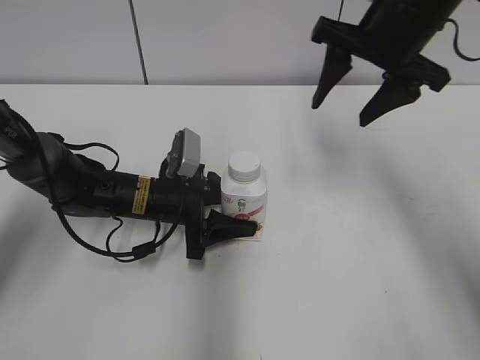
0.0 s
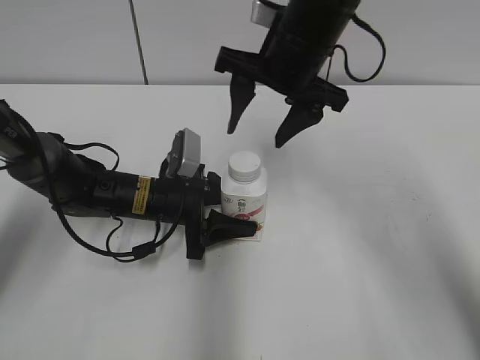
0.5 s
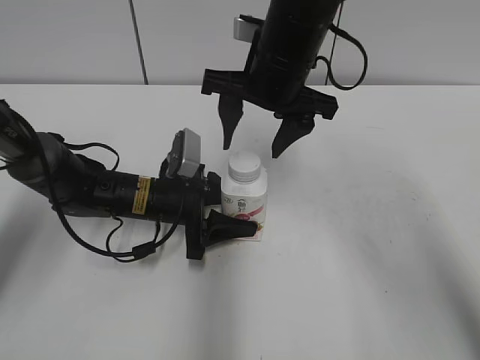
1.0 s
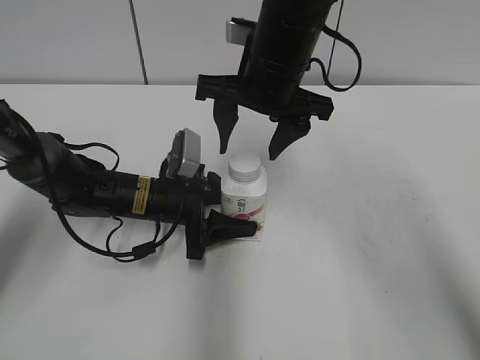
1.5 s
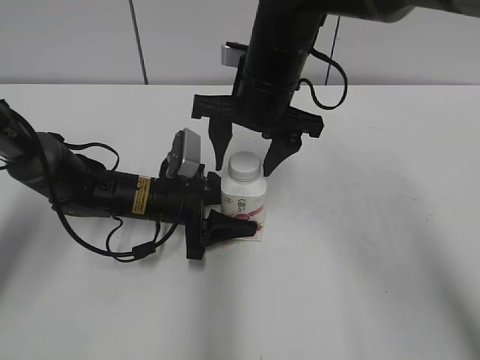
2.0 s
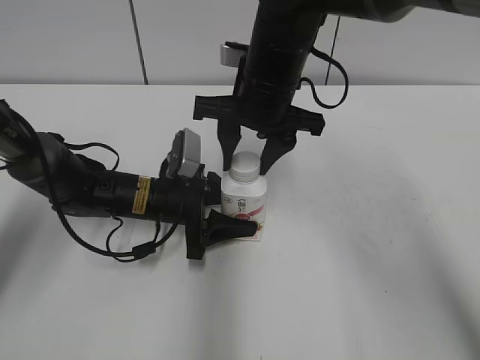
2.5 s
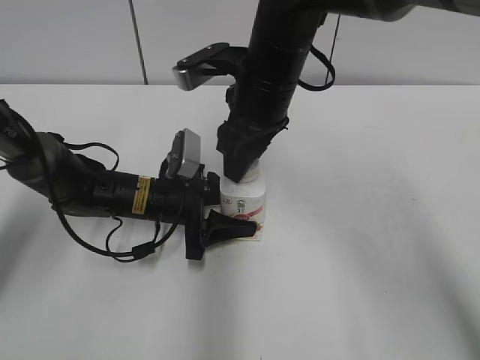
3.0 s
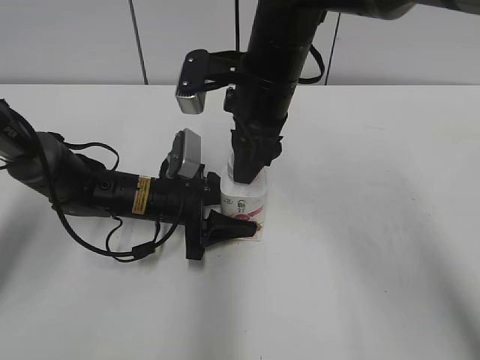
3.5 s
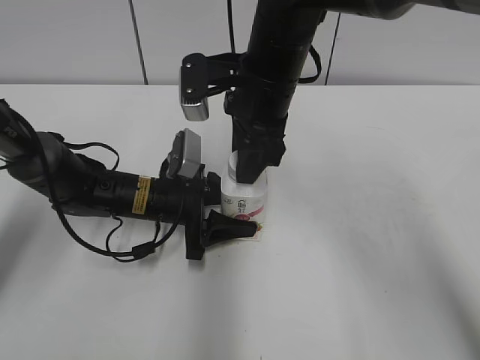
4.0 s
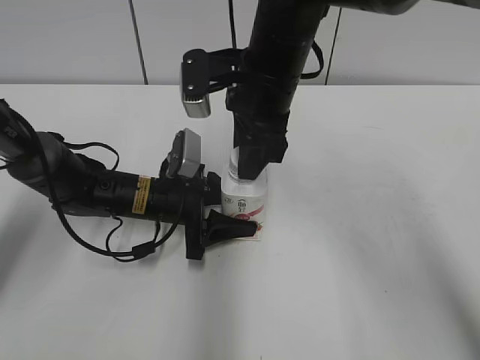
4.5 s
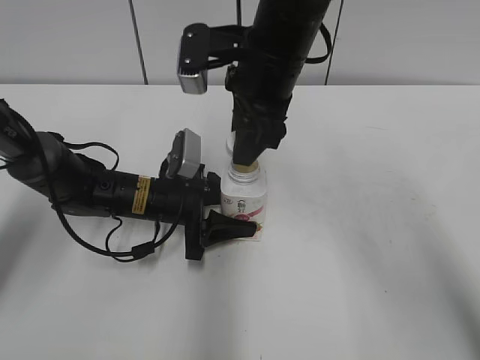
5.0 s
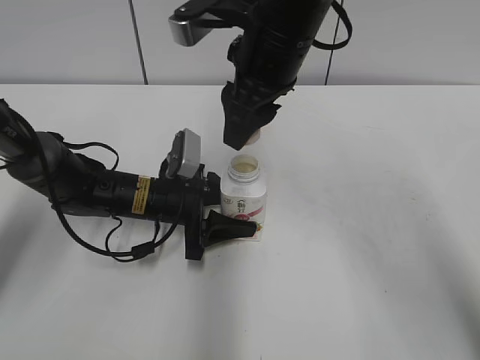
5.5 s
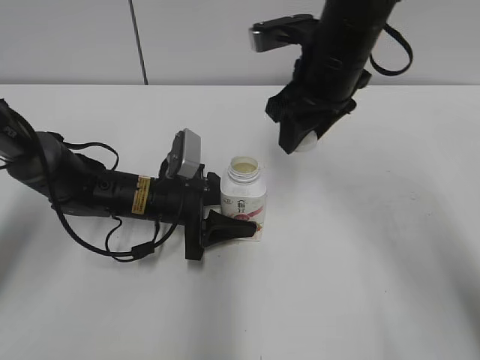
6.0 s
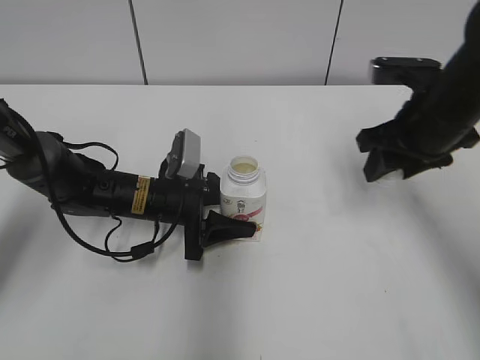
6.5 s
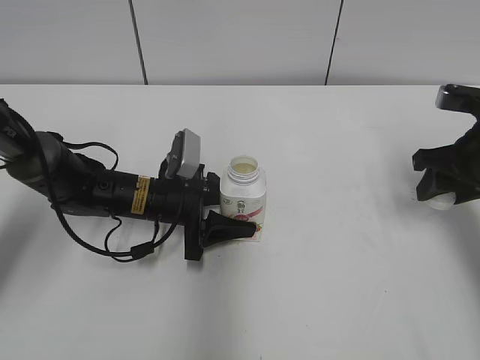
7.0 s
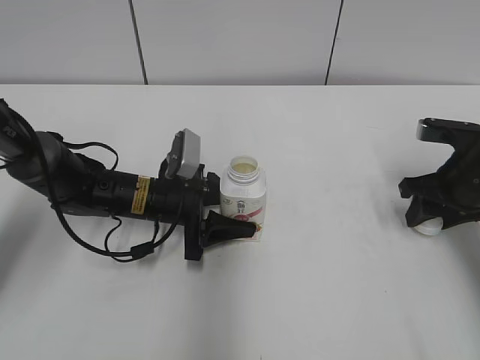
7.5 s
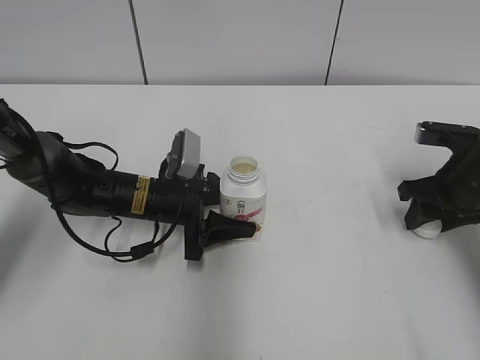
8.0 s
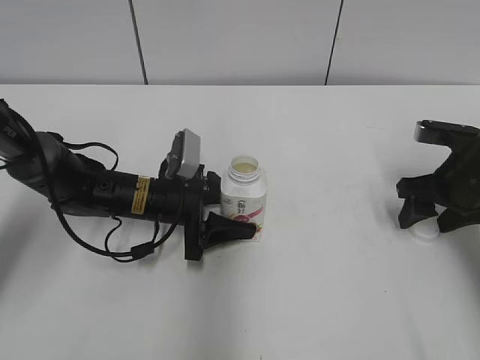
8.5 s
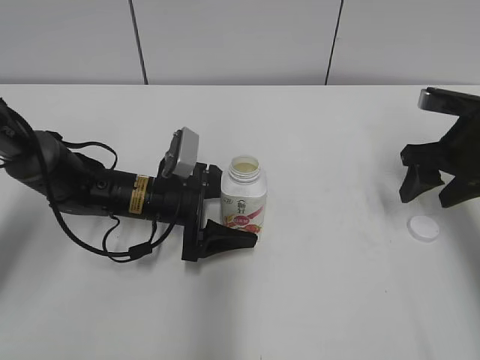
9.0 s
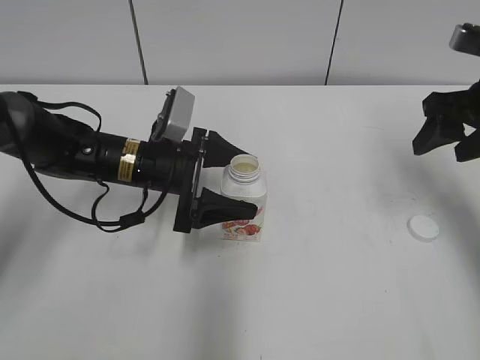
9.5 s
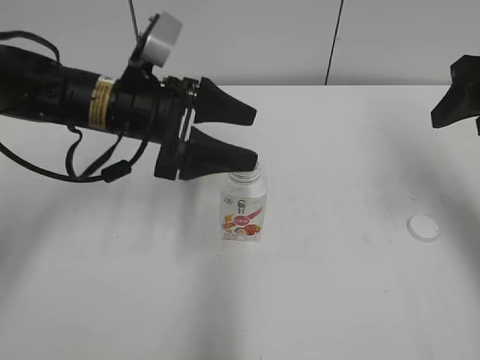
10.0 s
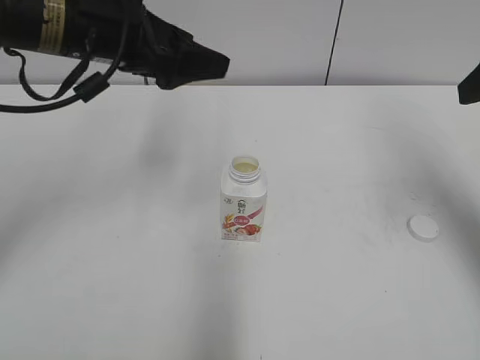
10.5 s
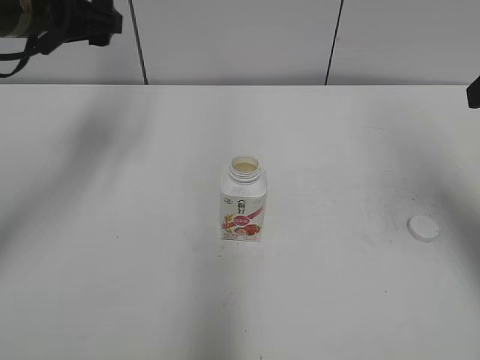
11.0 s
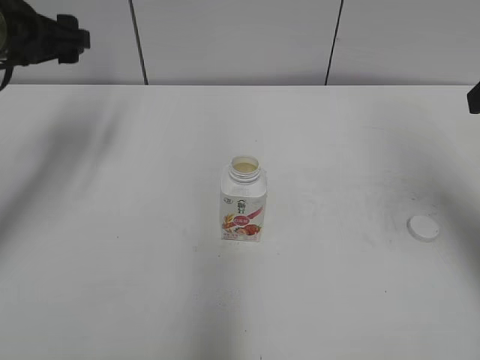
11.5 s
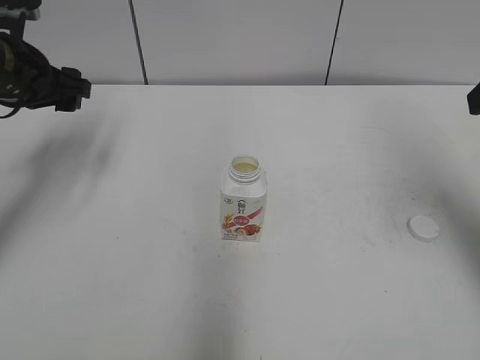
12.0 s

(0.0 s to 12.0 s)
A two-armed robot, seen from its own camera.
Step, 5.5 s - 8.0 s: Place the bottle cap on the right.
0.0 s - 2.0 s: The right gripper heads to the left and downward, covering some 15 cm.
2.0 s - 4.0 s: The right gripper closes.
4.0 s - 6.0 s: The right gripper travels to the right by about 5 cm.
6.0 s - 8.0 s: The right gripper heads to the right and downward, covering some 25 cm.
8.0 s - 10.0 s: The grippers both shift upward by about 15 cm. The right gripper opens its fingers, while the left gripper opens up.
10.0 s - 12.0 s: The left gripper shifts about 15 cm to the left. The right gripper moves roughly 5 cm.

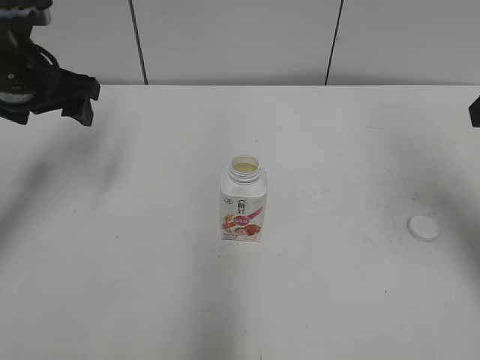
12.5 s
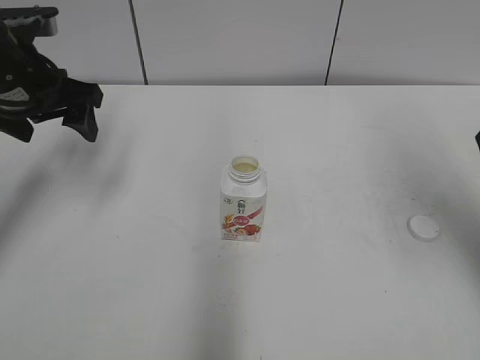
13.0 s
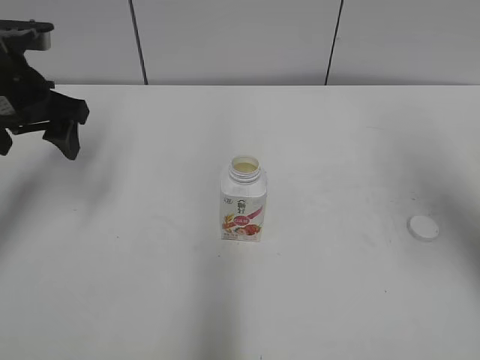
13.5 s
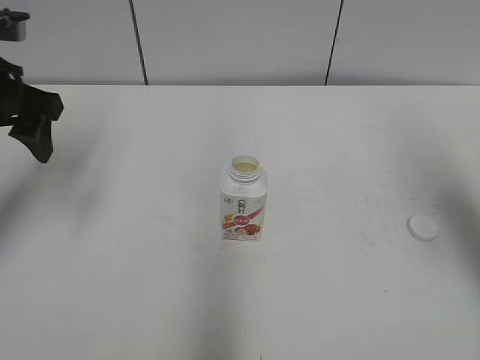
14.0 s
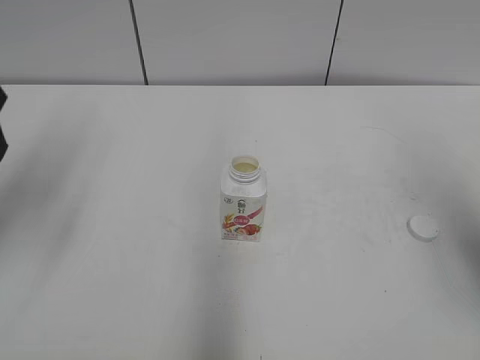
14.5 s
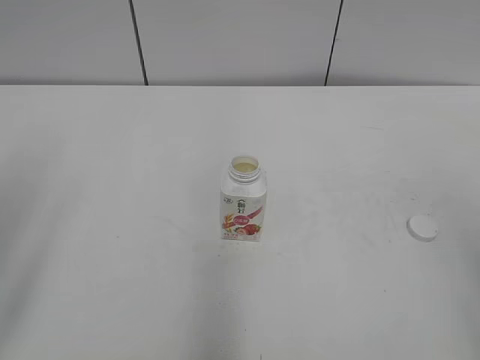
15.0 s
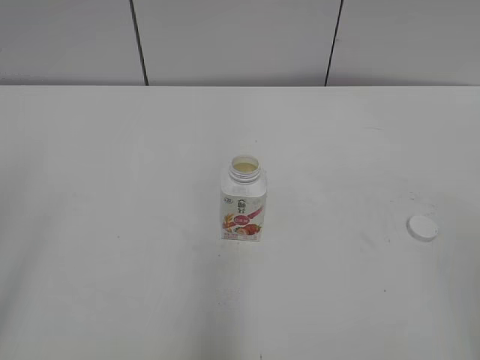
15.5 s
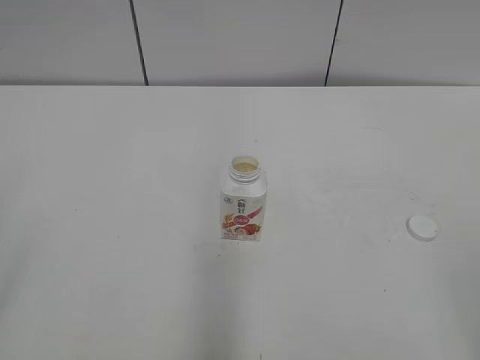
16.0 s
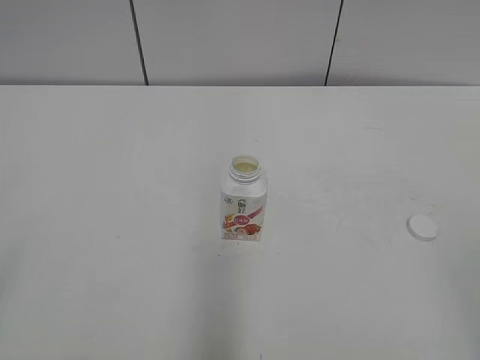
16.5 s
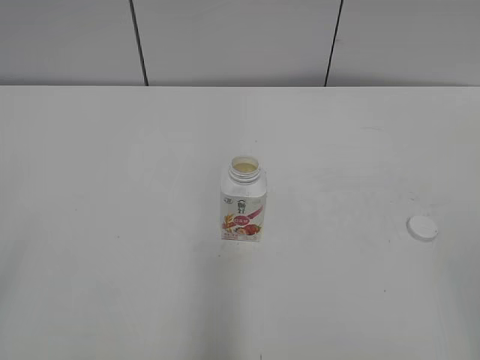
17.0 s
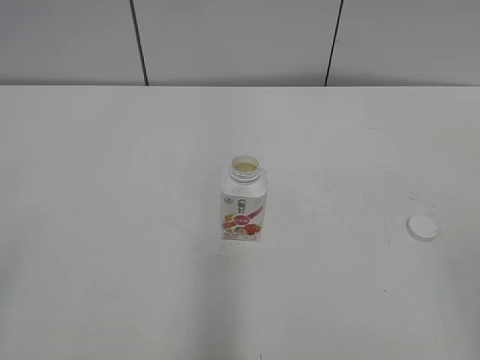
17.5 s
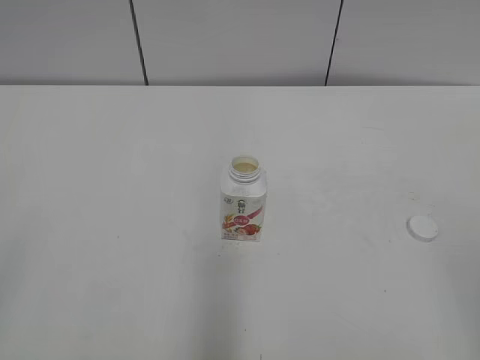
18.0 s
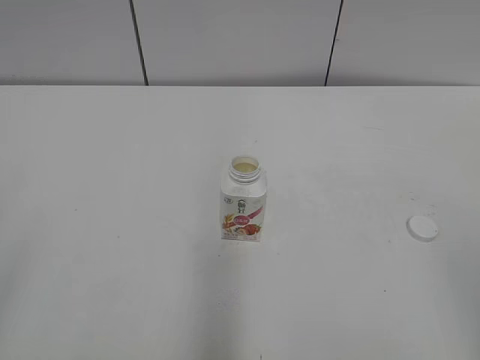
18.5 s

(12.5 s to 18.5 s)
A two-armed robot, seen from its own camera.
12.5 s - 14.5 s: The left gripper heads backward and upward, covering some 15 cm.
14.5 s - 16.5 s: The two grippers go about 20 cm backward.
